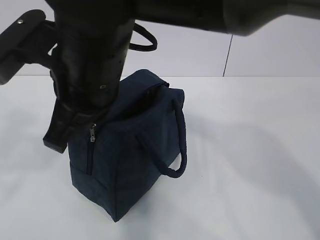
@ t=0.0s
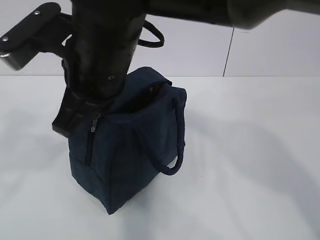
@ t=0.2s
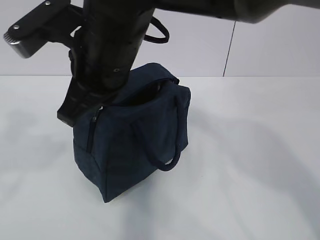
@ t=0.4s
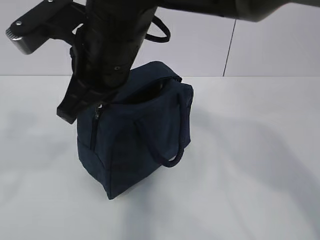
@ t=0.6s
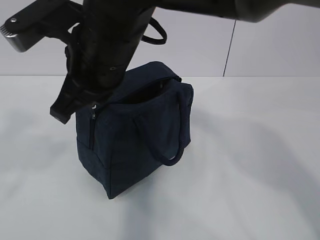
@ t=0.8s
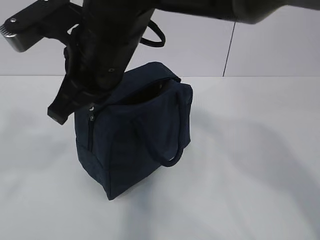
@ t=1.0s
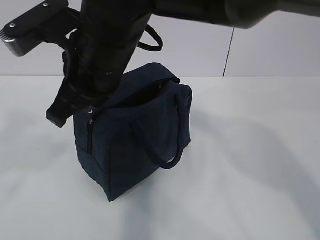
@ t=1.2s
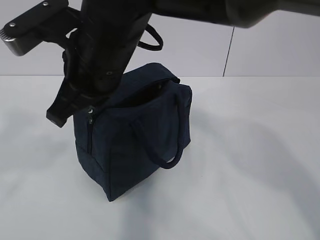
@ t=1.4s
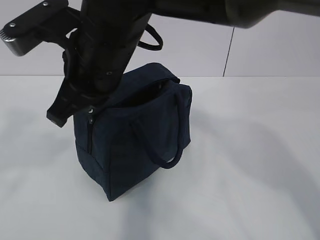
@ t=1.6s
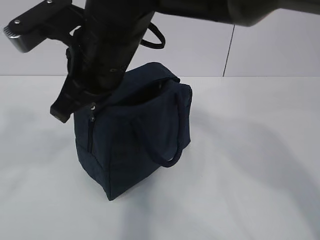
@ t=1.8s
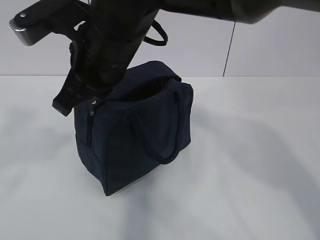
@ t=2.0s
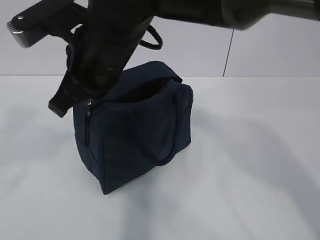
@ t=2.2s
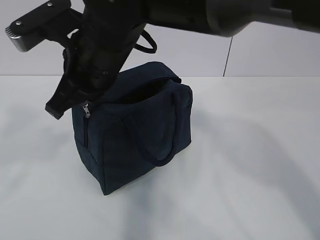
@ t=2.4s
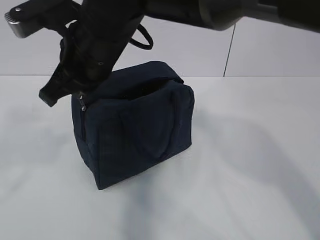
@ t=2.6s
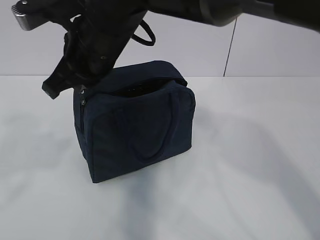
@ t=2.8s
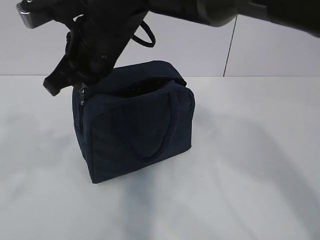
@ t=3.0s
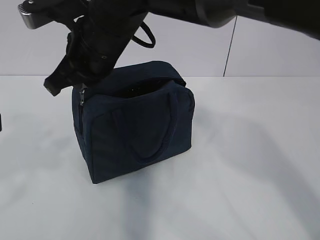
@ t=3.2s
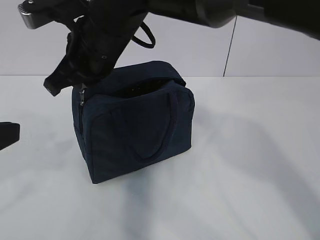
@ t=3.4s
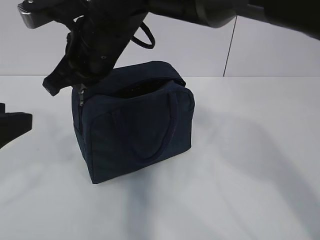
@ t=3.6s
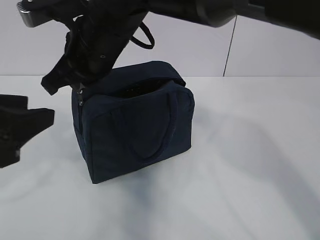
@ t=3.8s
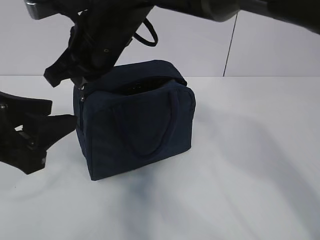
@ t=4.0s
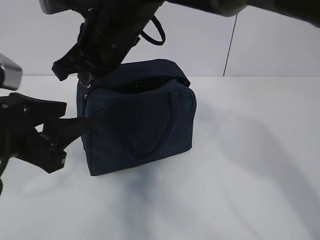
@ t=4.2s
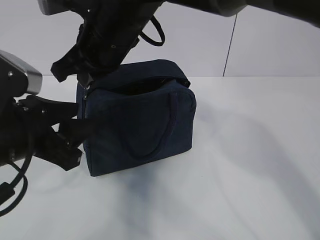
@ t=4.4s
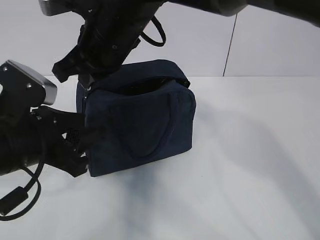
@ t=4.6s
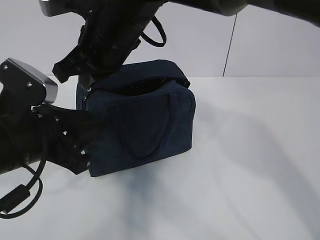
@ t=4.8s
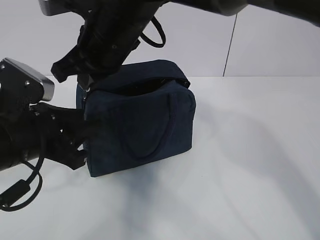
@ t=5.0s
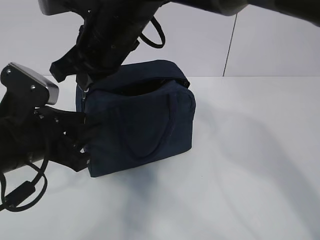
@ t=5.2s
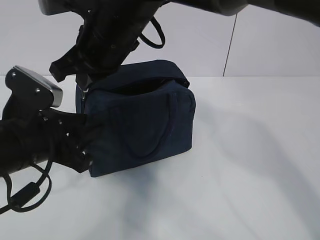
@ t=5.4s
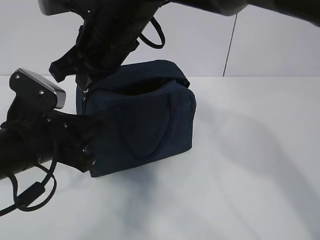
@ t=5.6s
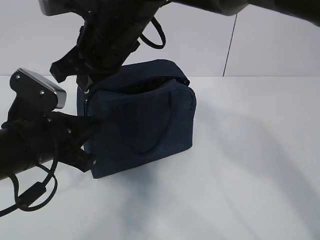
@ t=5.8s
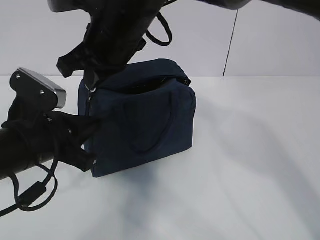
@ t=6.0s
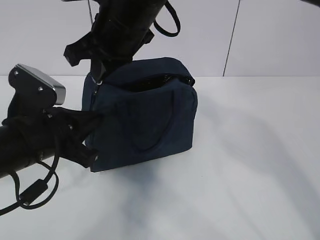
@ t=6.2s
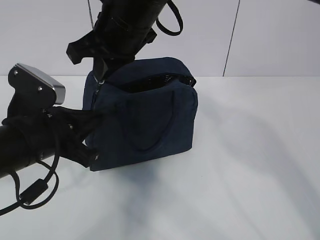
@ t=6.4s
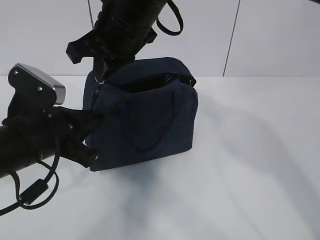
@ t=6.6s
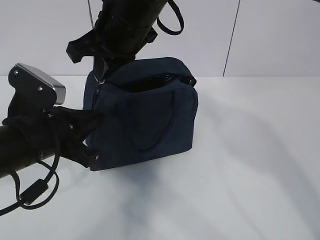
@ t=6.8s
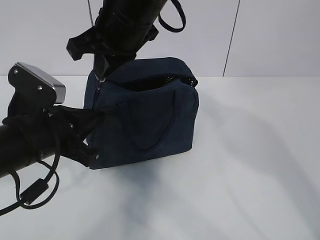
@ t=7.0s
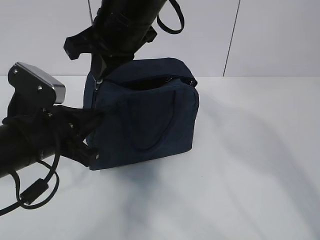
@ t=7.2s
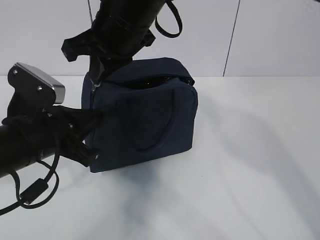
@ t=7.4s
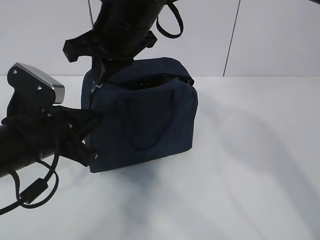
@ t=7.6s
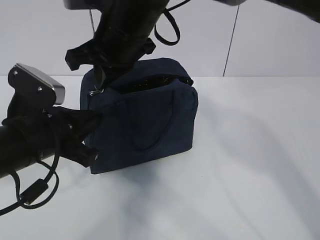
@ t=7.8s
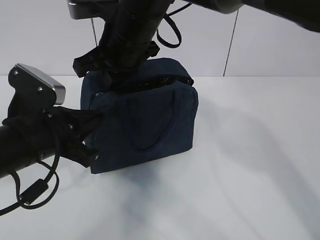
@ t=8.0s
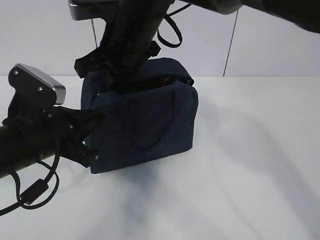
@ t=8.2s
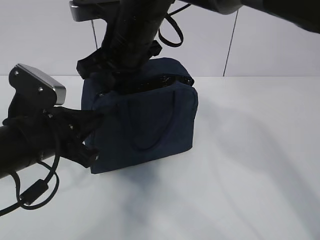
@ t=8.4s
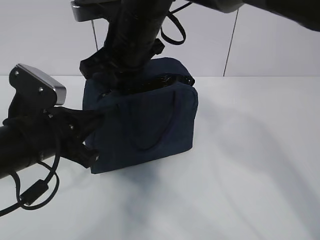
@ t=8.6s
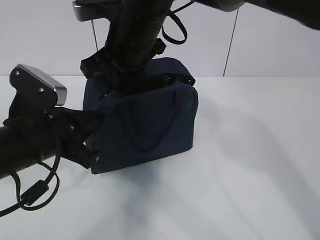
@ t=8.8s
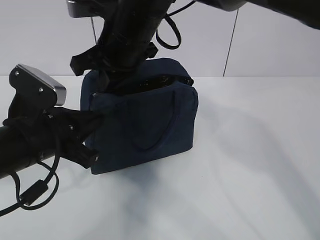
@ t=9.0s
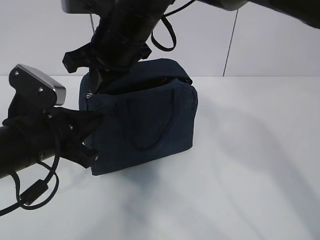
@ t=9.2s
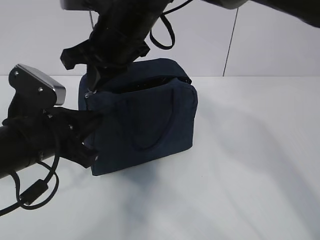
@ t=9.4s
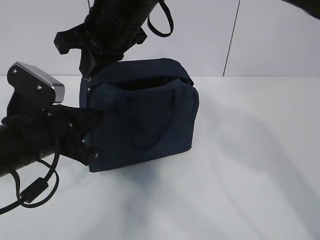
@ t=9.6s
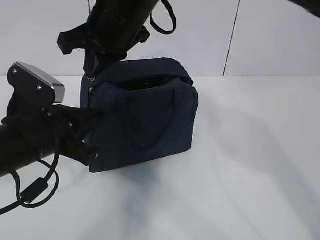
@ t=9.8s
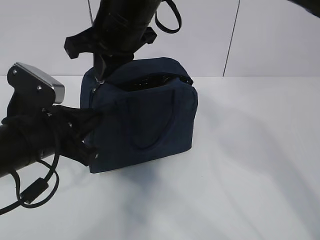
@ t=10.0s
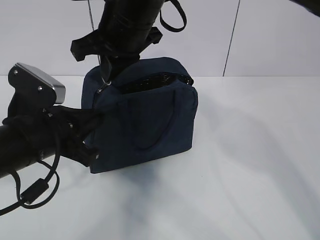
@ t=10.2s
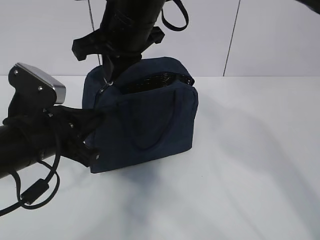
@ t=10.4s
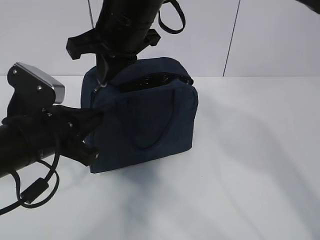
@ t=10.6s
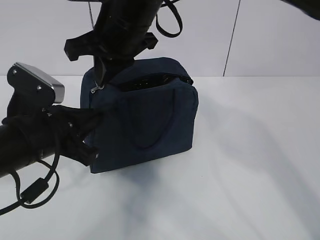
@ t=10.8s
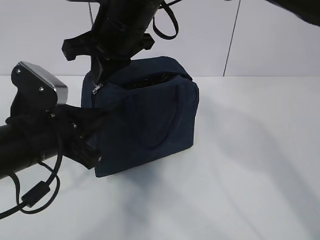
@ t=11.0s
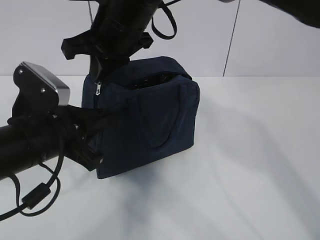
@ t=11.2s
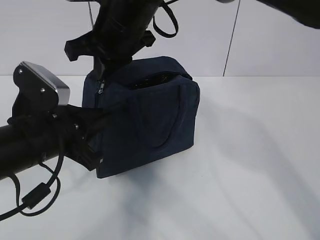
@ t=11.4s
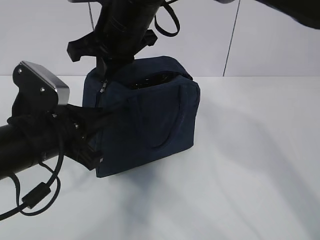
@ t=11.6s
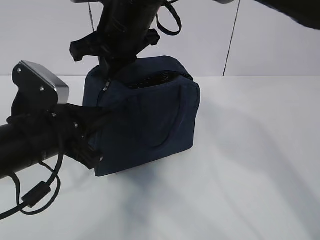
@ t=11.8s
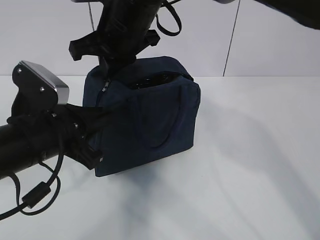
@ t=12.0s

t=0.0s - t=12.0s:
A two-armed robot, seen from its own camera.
t=0.0s - t=1.6s: There are only small adjustments of the grippers.
t=1.6s - t=3.0s: The left gripper shifts some 5 cm downward; the right gripper goes about 5 cm forward.
t=3.0s - t=4.4s: The left gripper moves forward, to the right and downward, about 15 cm.
t=4.4s - t=6.0s: The left gripper closes its fingers.
t=6.0s - t=12.0s: The grippers move only a little.

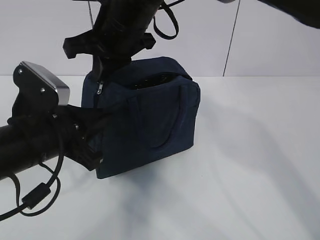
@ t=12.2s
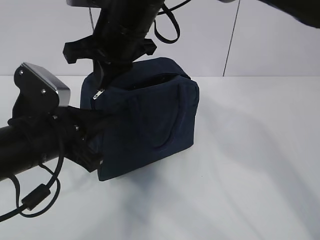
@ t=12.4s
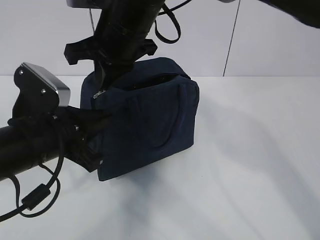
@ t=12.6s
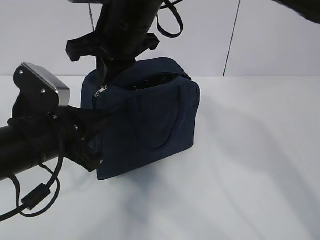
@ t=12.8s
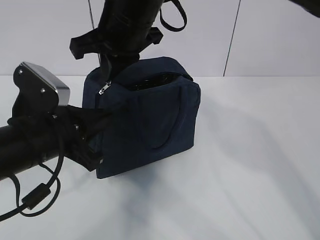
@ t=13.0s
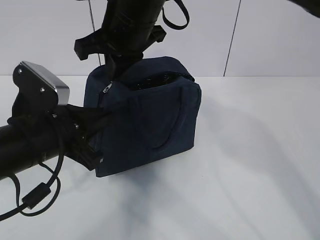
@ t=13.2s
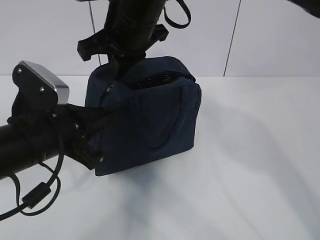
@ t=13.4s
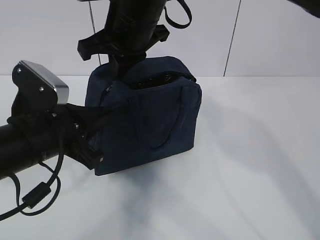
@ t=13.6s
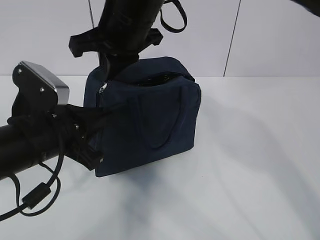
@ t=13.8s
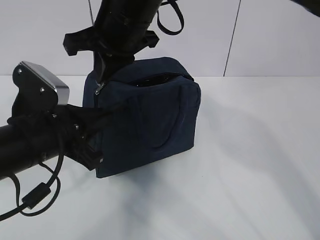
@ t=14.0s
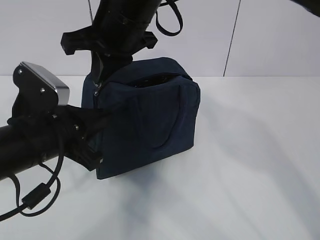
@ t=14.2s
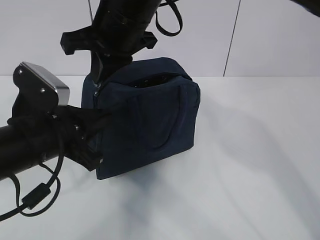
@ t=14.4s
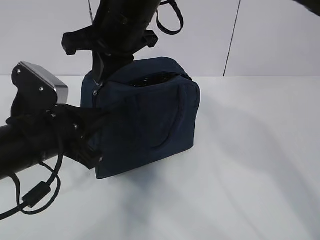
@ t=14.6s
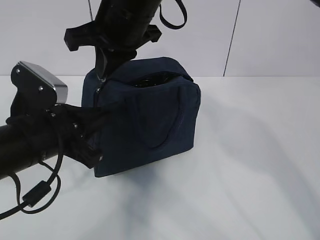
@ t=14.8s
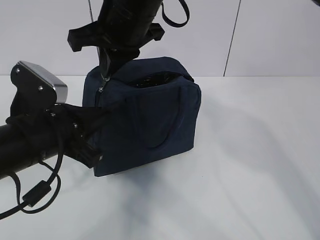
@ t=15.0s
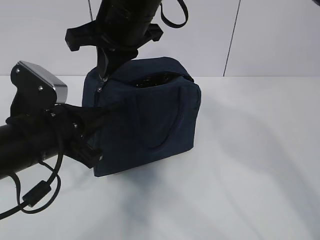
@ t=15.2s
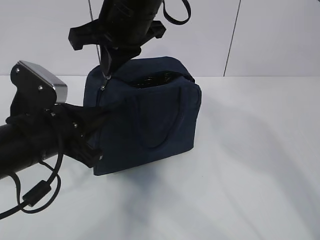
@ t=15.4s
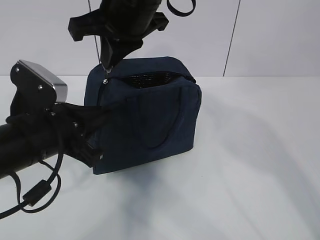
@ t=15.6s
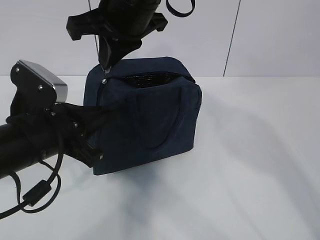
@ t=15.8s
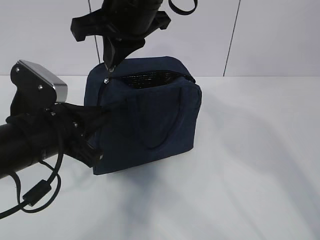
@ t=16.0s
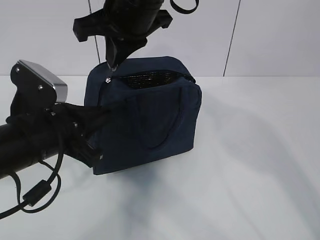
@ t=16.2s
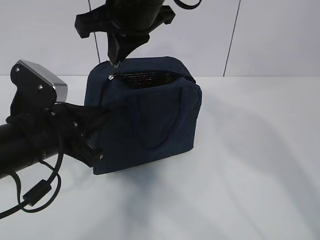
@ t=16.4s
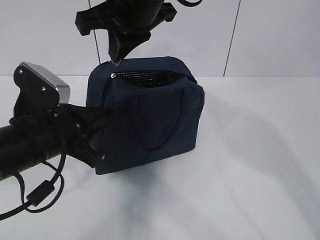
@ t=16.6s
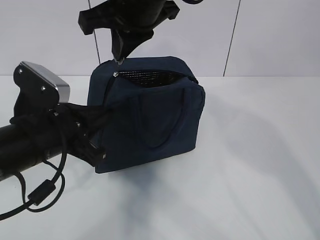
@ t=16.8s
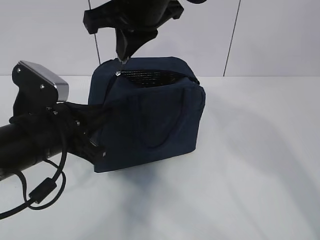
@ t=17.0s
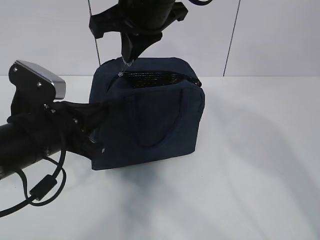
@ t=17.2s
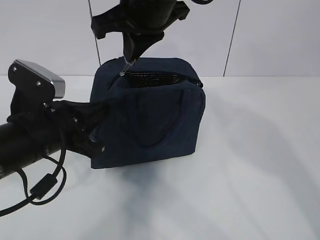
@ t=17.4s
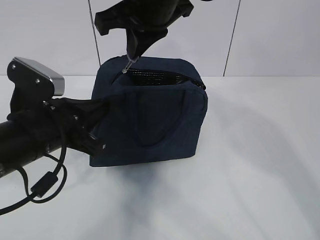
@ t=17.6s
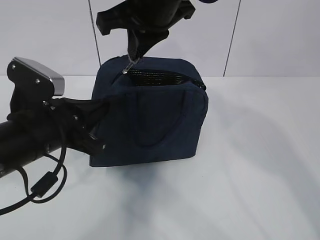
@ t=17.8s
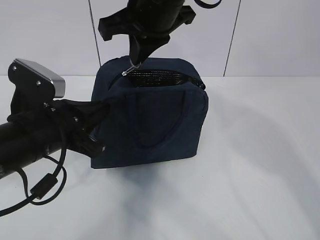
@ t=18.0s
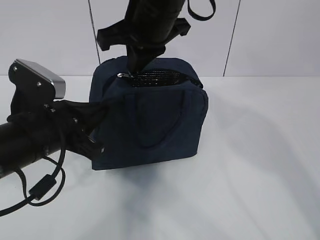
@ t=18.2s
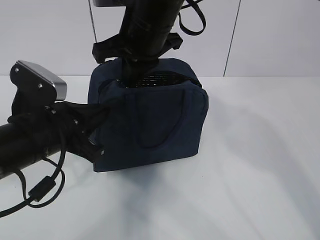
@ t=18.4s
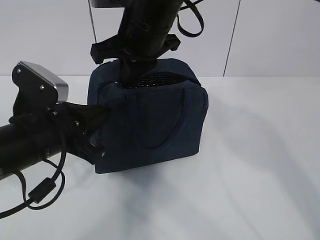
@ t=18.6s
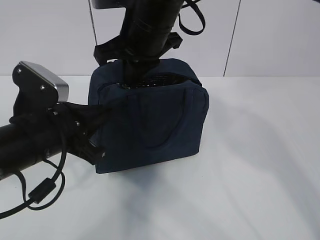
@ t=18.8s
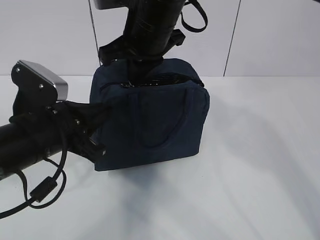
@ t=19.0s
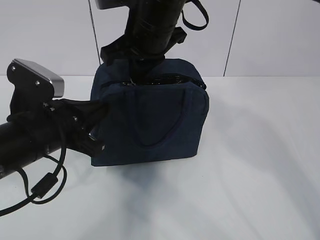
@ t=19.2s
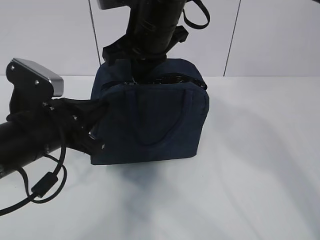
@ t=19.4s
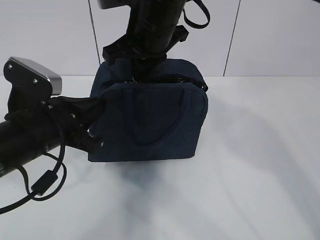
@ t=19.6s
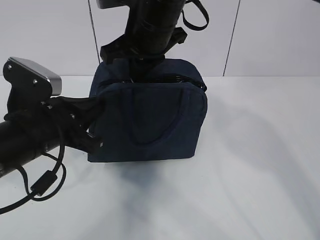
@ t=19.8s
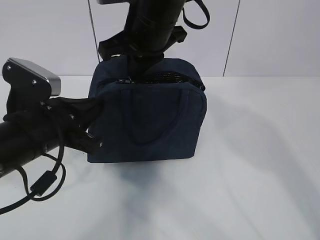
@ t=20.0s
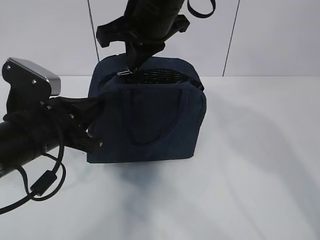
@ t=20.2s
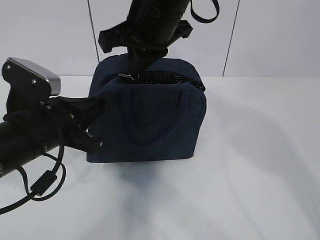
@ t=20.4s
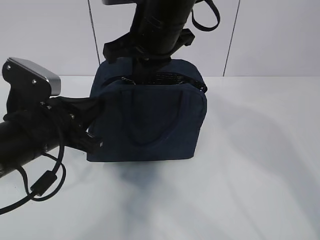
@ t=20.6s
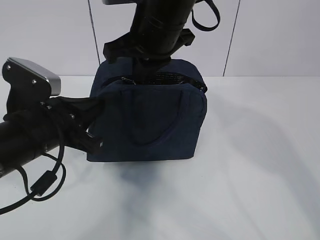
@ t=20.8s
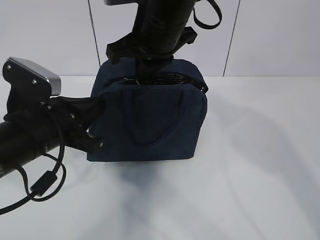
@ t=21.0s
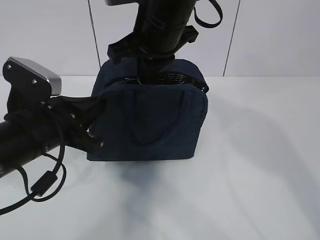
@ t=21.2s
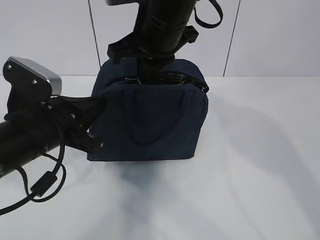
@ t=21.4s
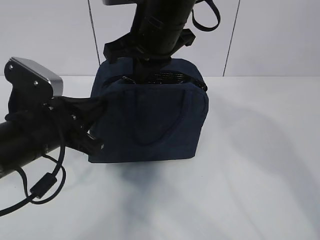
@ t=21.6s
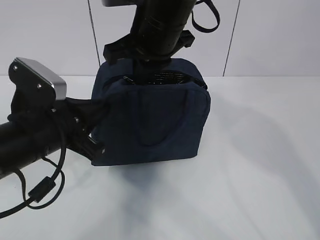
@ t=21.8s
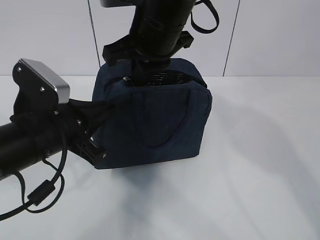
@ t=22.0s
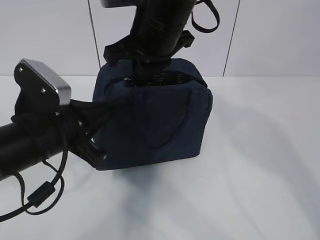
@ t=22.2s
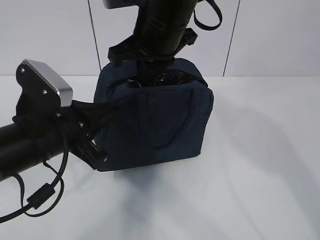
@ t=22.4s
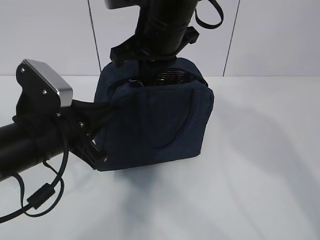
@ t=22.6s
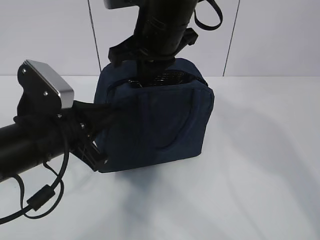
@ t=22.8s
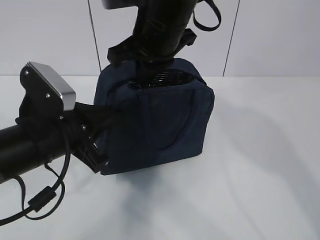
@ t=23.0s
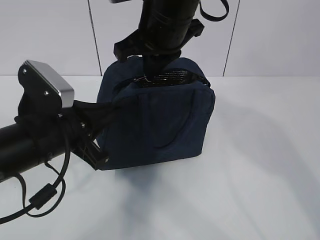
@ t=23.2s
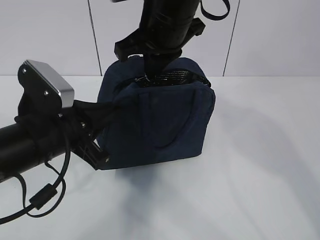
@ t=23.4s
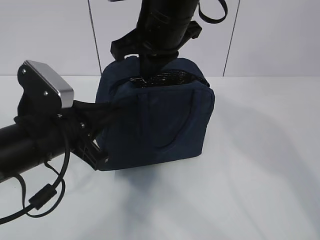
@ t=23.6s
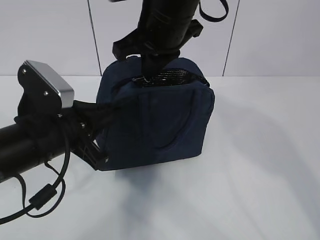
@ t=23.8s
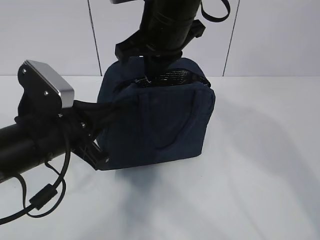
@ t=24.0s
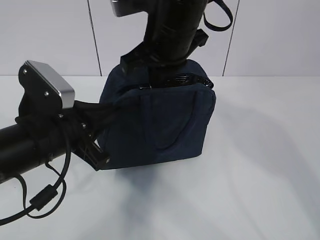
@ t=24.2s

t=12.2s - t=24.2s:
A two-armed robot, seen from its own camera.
Step, t=12.2s - t=20.0s: Grab the lunch bag with your left hand.
t=12.2s - t=13.8s: There are only small adjustments of the grippers.
t=13.8s - t=15.2s: Neither gripper changes place.
t=15.2s - t=22.6s: The grippers make only small movements.
t=22.6s - t=24.2s: Neither gripper changes place.
